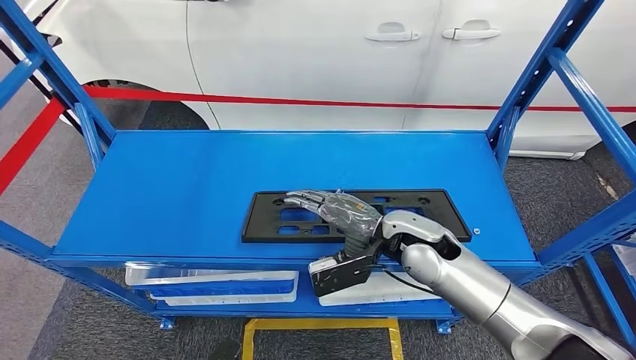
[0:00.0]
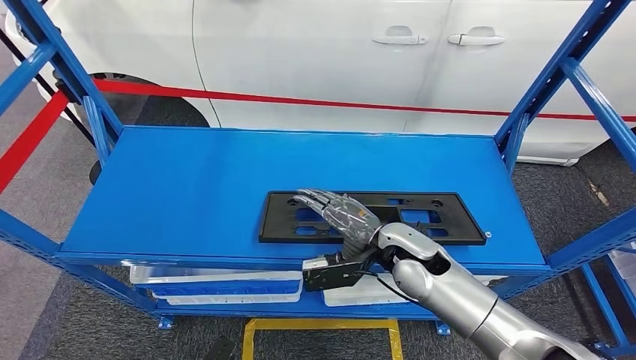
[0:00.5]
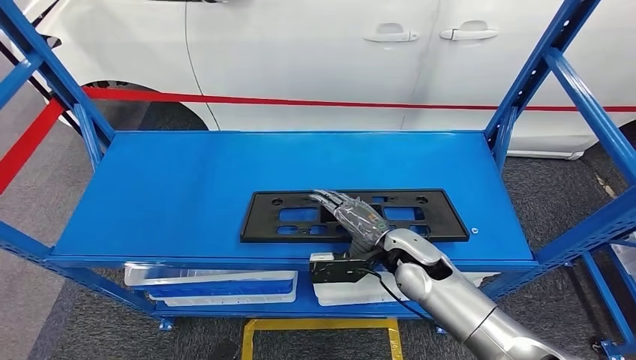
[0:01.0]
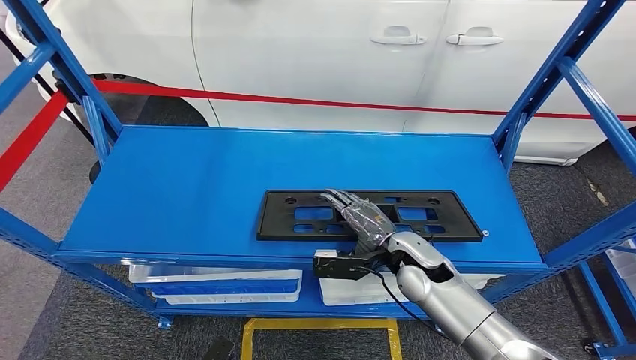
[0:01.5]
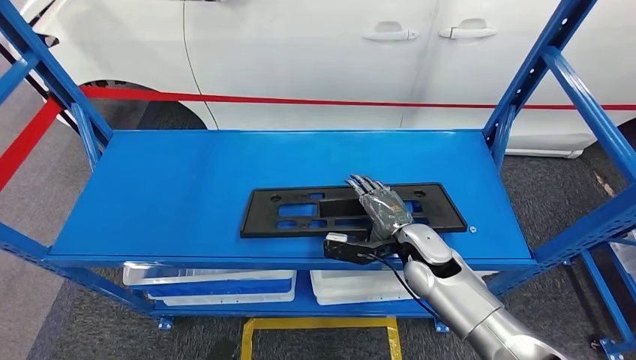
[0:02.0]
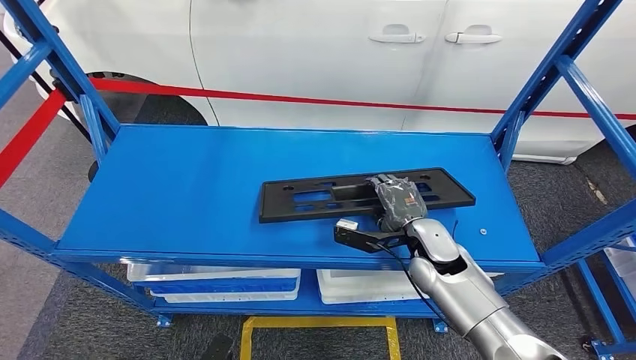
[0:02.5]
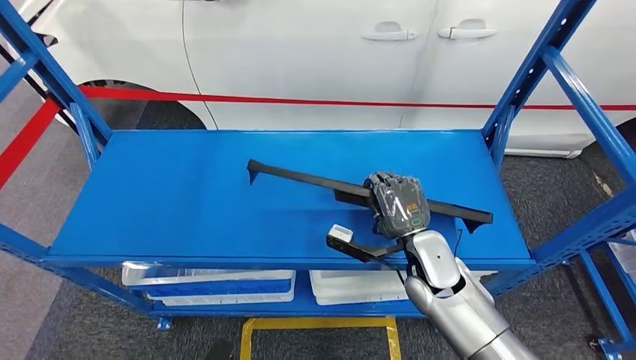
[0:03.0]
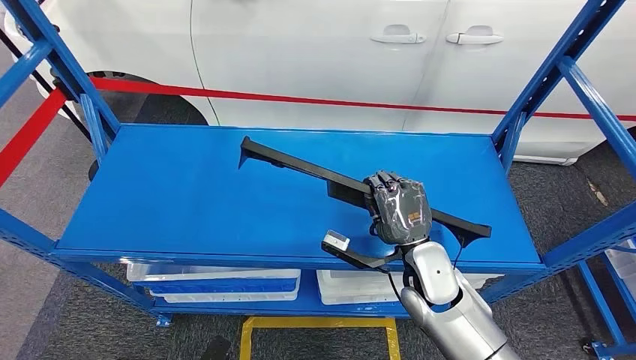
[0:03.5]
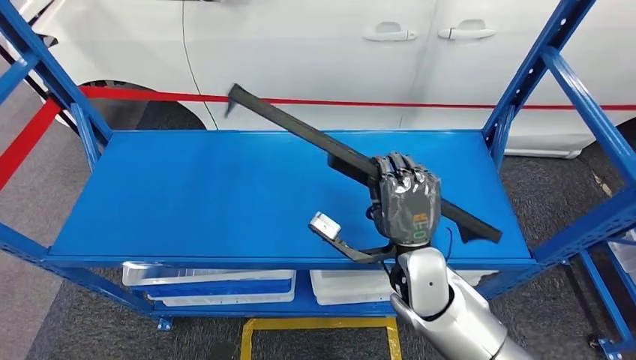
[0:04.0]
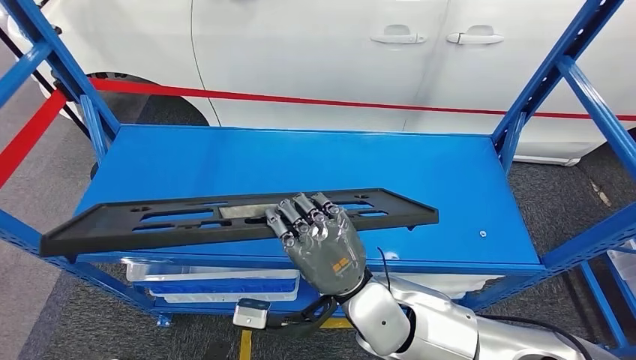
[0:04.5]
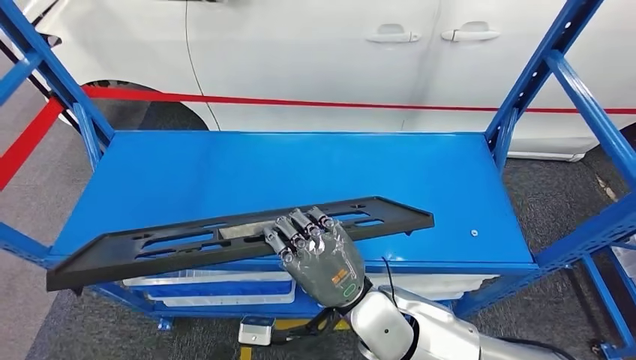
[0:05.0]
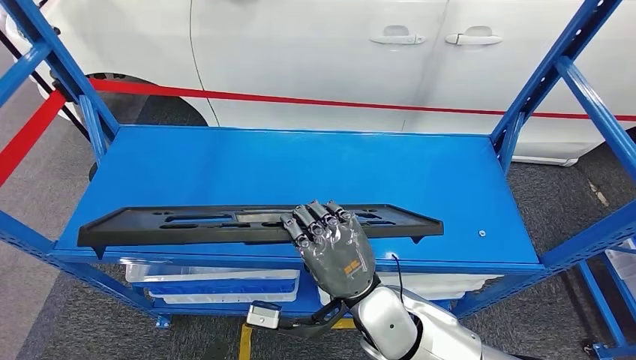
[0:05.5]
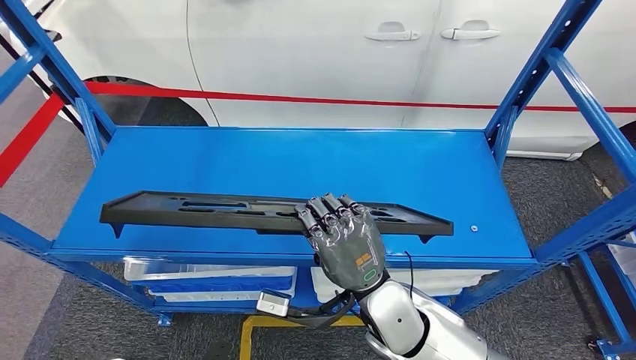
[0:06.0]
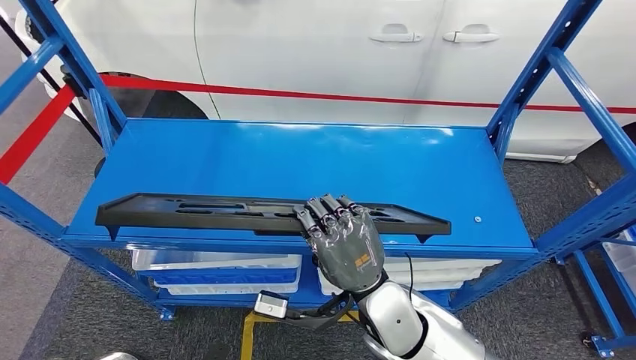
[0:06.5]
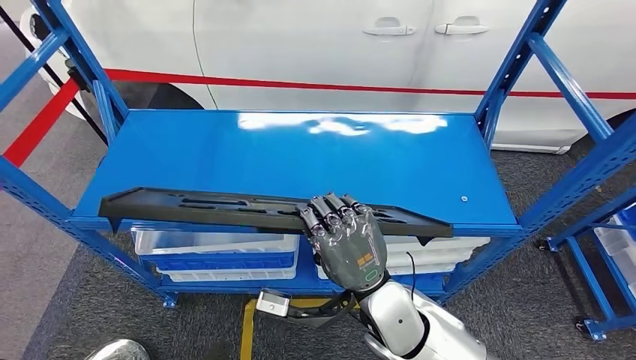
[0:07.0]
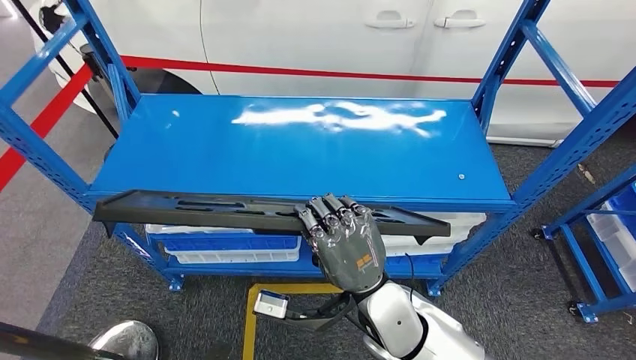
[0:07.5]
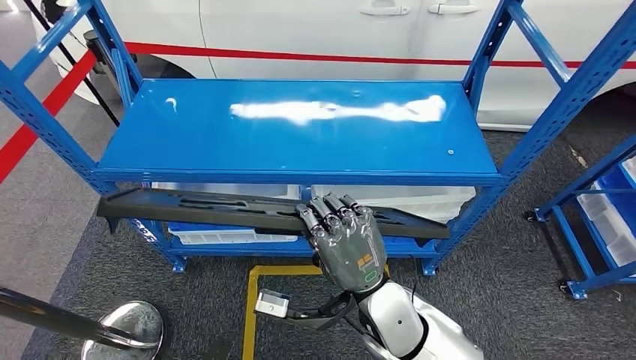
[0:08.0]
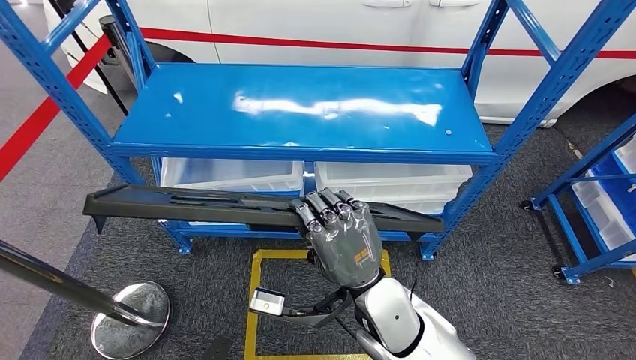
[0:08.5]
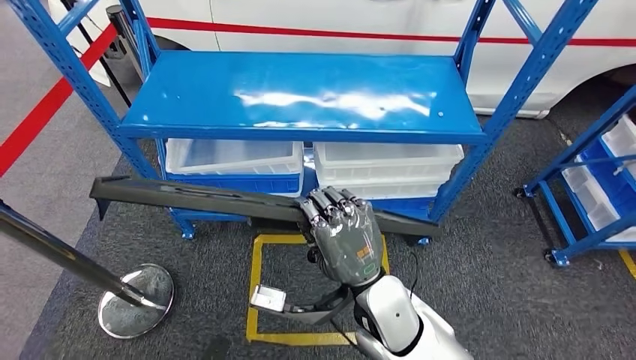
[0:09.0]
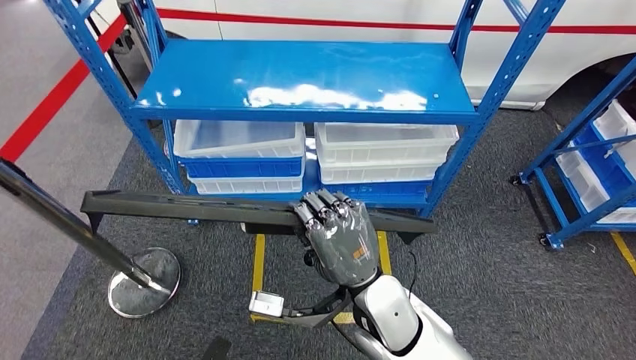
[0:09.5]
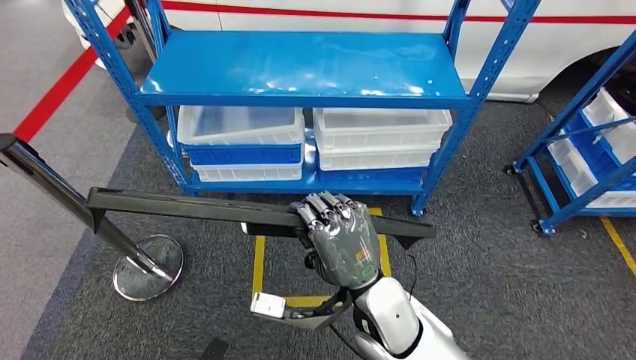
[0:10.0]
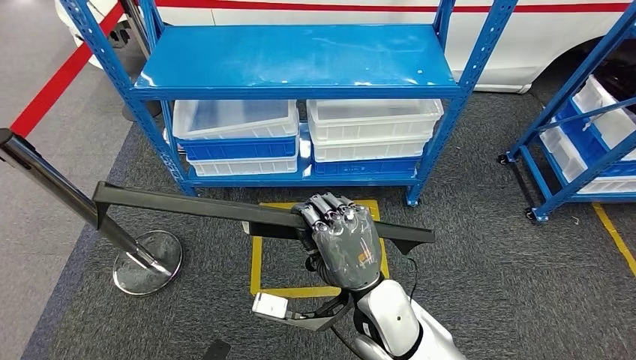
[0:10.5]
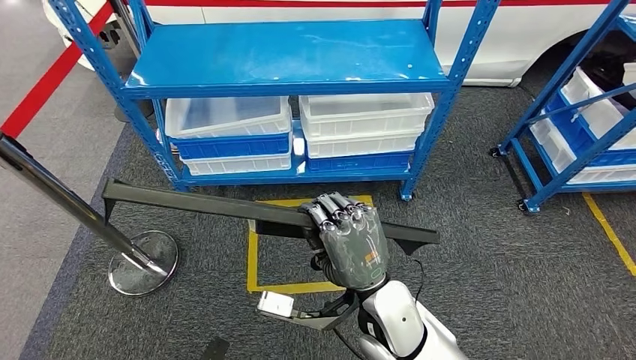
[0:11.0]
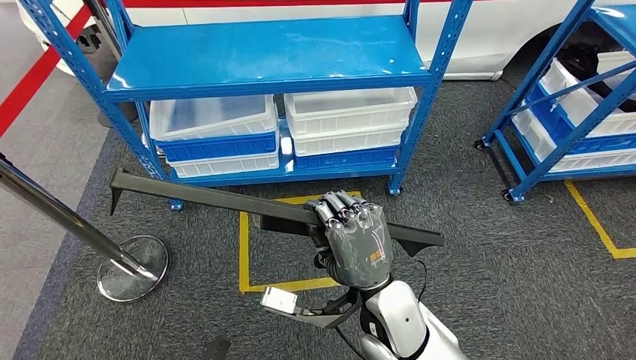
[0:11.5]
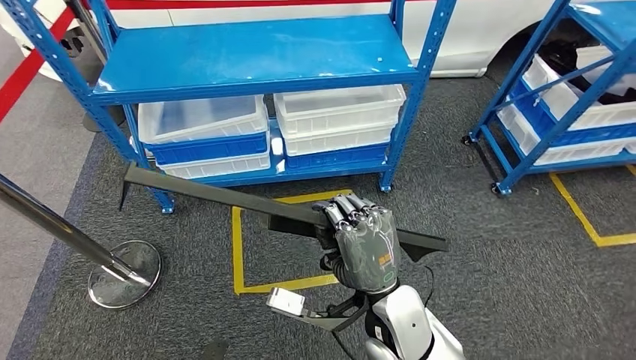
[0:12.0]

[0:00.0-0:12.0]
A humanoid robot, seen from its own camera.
0:00.0 to 0:02.0: The right hand is displaced downward by some 5 cm.
0:02.0 to 0:04.0: The right hand shifts about 10 cm to the left, backward and upward.

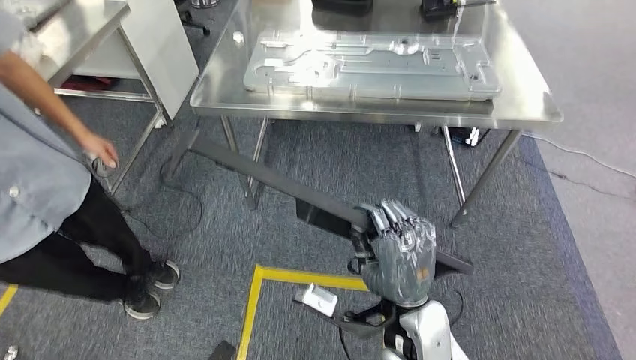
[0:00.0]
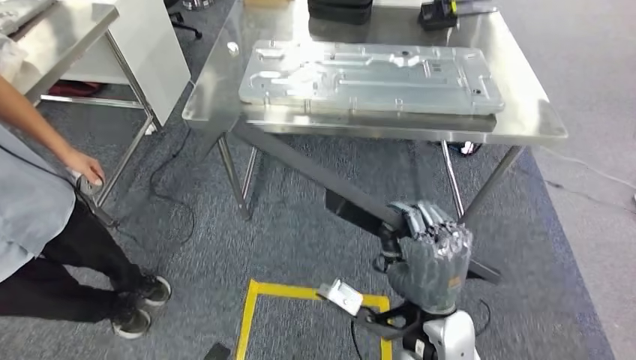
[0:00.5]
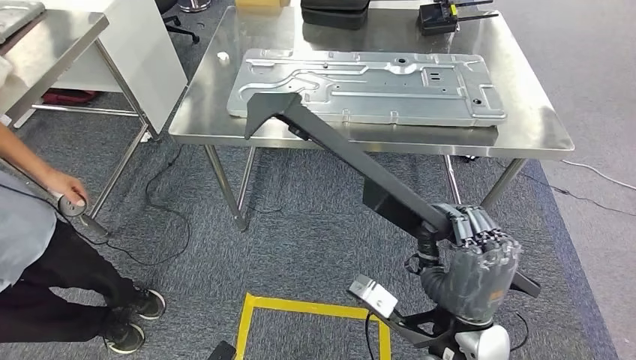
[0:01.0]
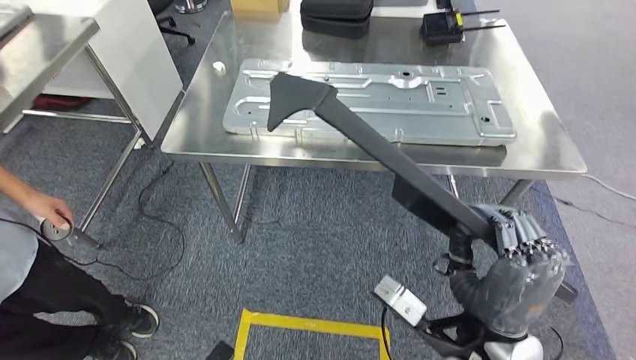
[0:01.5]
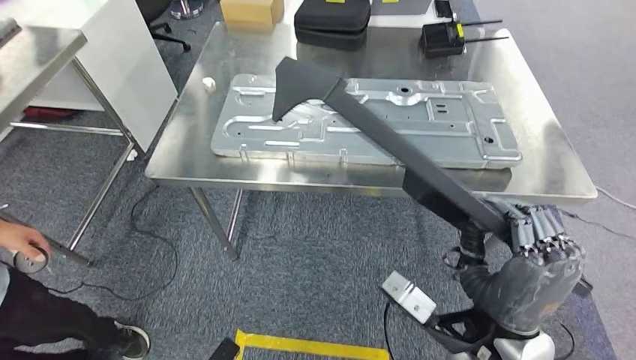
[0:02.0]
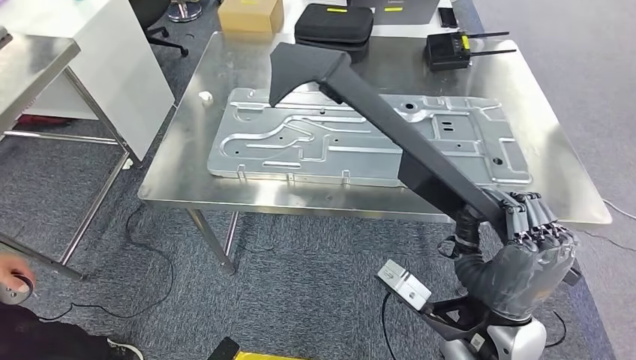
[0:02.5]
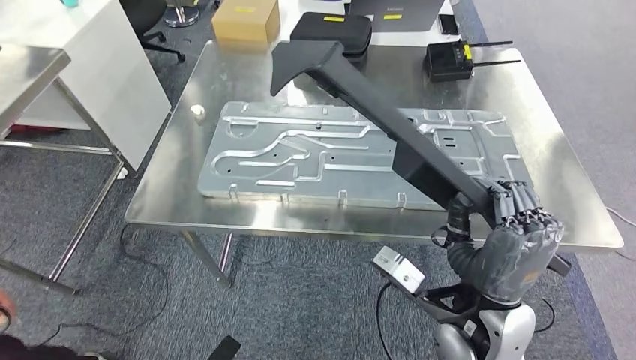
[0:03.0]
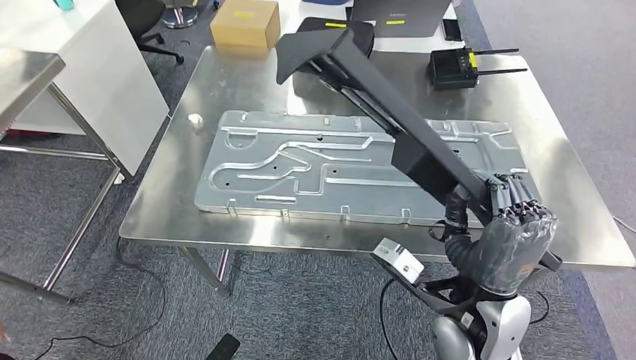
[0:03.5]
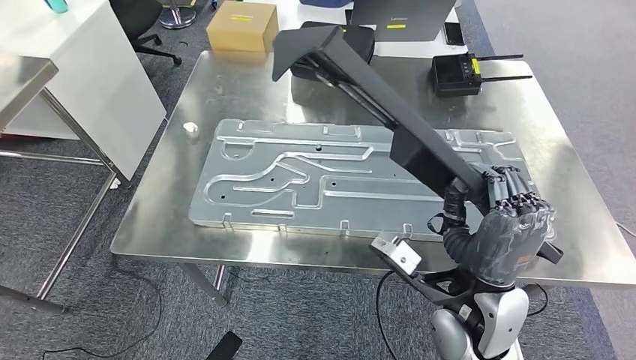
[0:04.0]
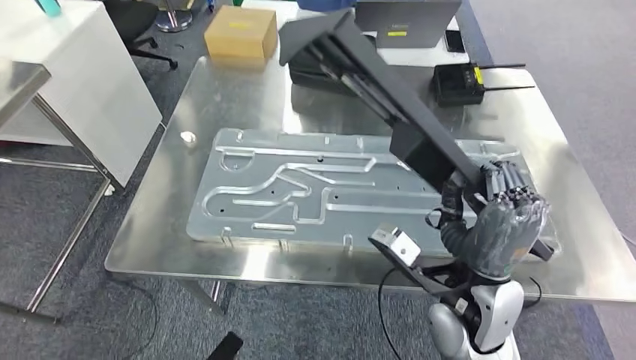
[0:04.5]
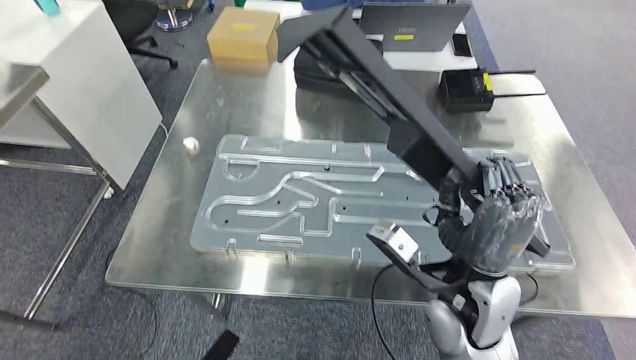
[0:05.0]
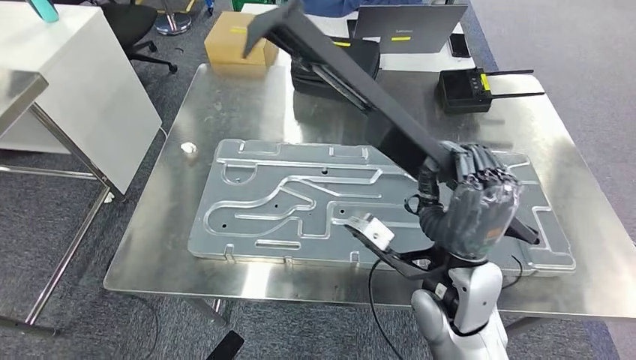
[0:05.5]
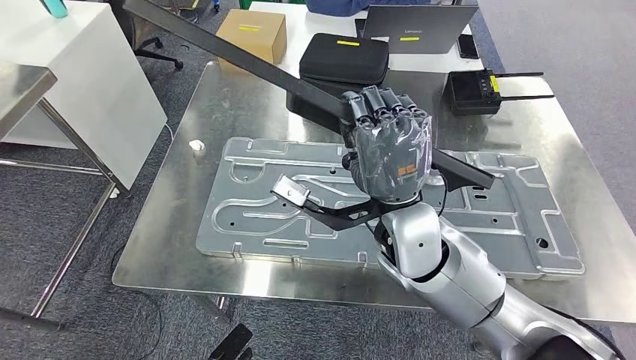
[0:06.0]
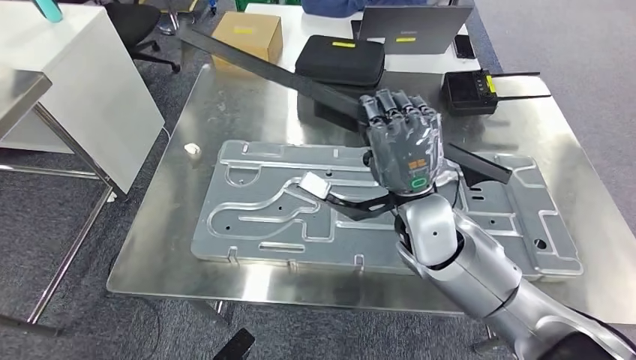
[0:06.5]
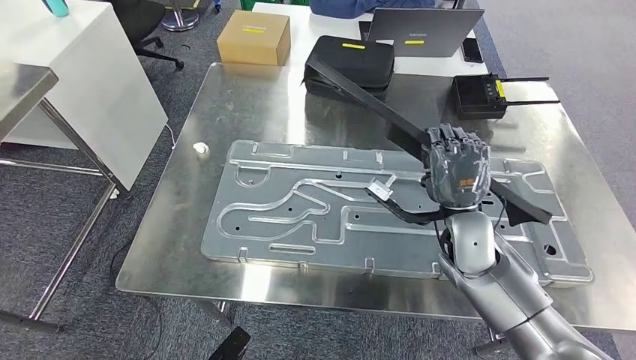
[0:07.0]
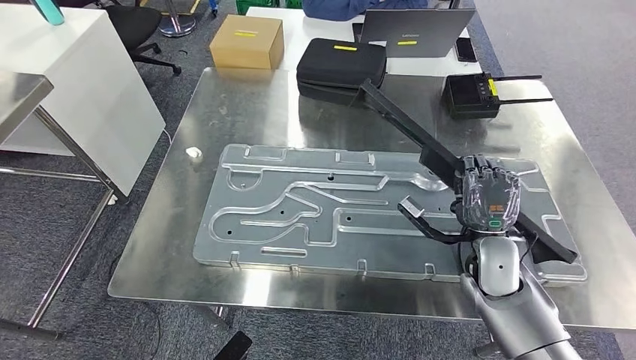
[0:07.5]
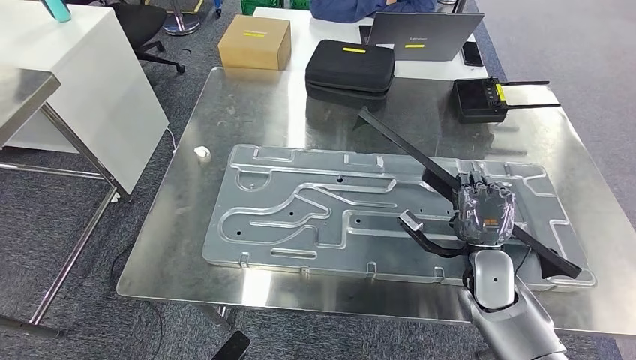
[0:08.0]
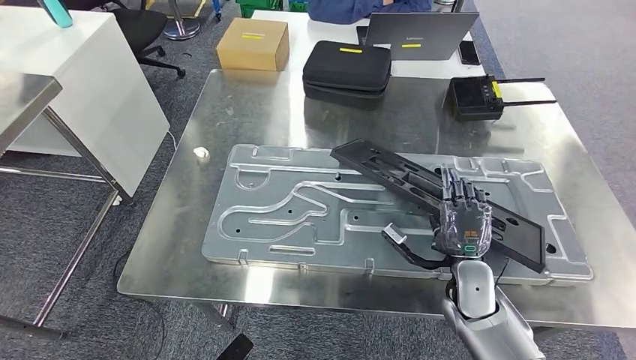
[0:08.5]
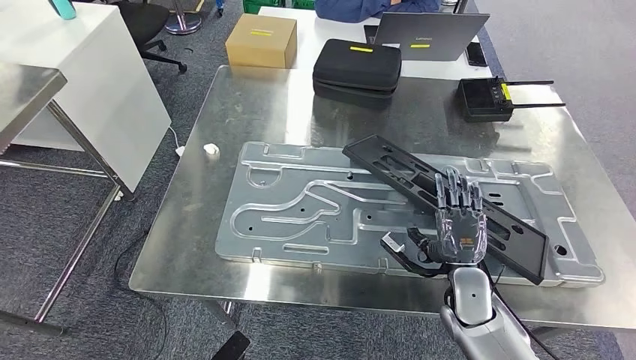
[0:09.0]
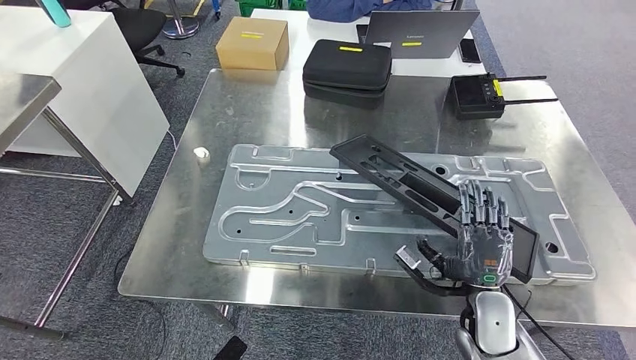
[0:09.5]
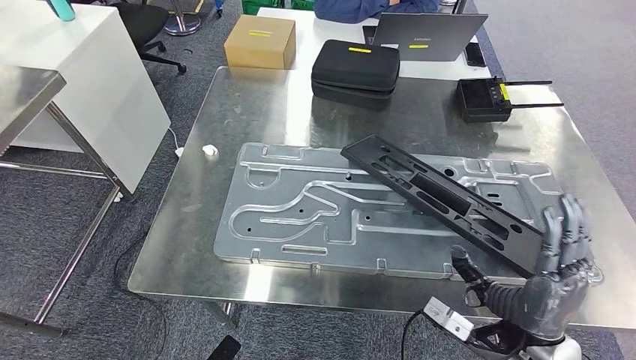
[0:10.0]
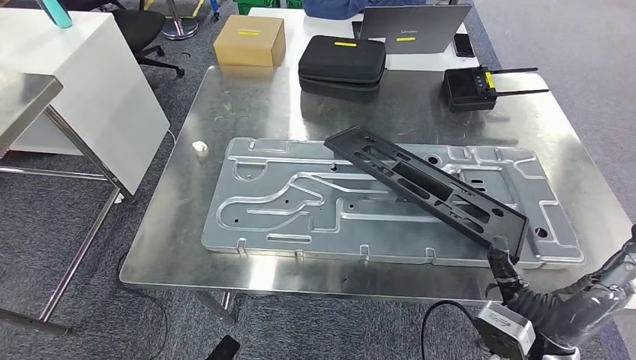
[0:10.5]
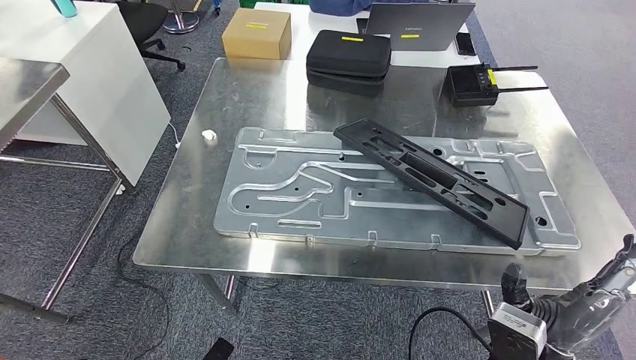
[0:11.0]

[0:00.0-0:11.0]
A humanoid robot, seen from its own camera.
Step, 0:00.0 to 0:02.5: Move the large material to the workbench.
Step, 0:03.0 to 0:10.5: Insert the large material into the corresponding slot on the workbench.
